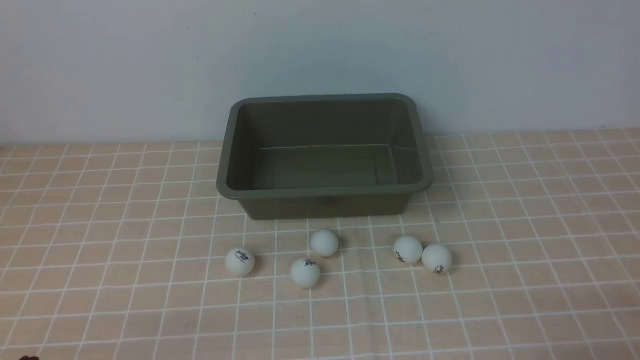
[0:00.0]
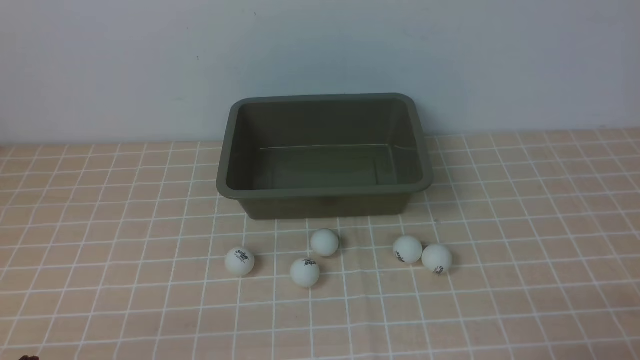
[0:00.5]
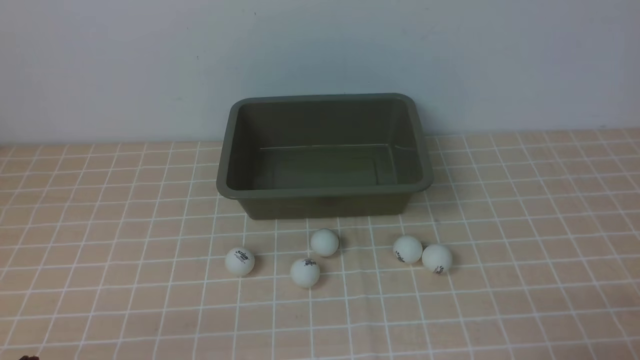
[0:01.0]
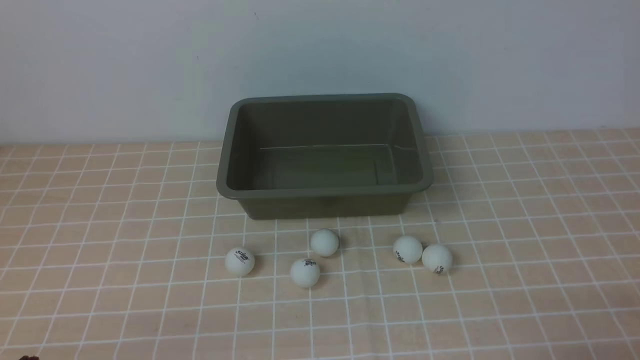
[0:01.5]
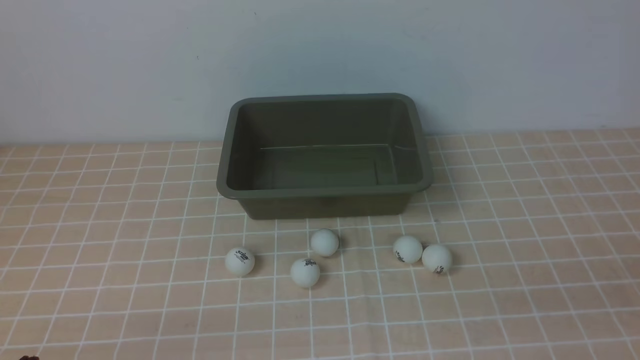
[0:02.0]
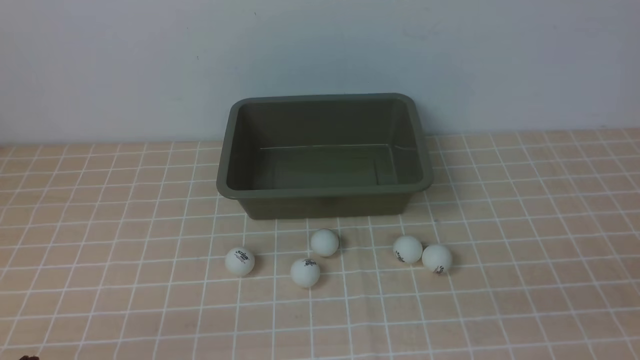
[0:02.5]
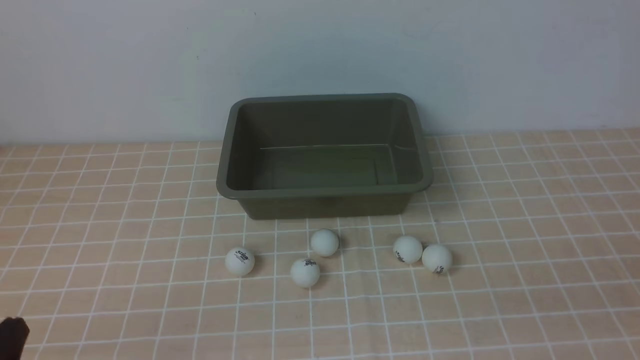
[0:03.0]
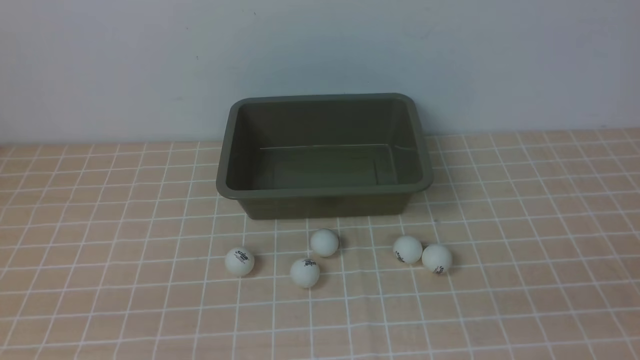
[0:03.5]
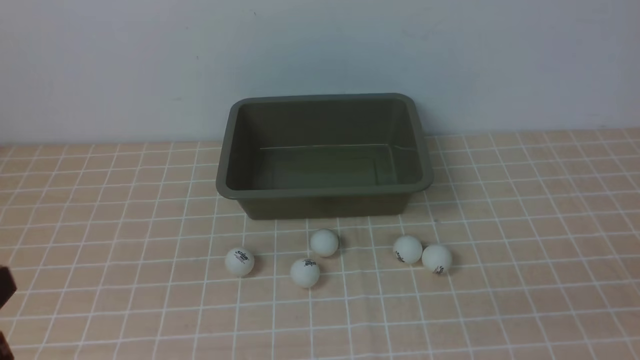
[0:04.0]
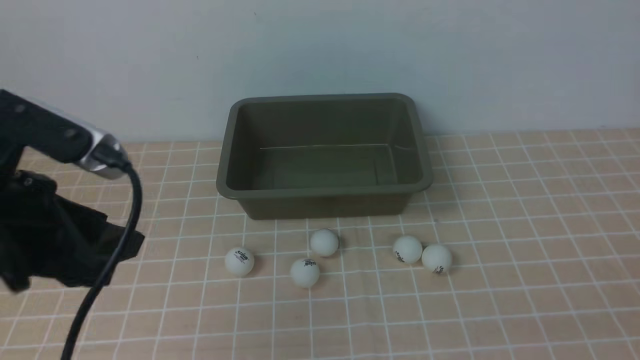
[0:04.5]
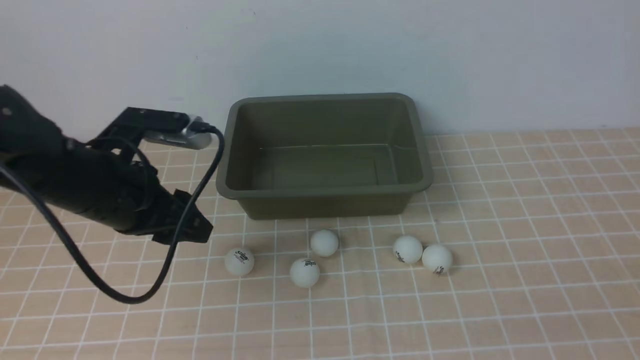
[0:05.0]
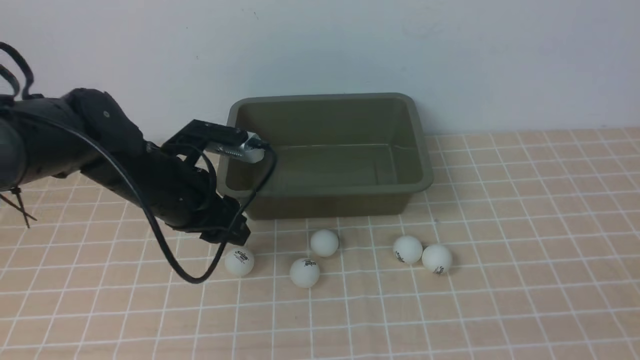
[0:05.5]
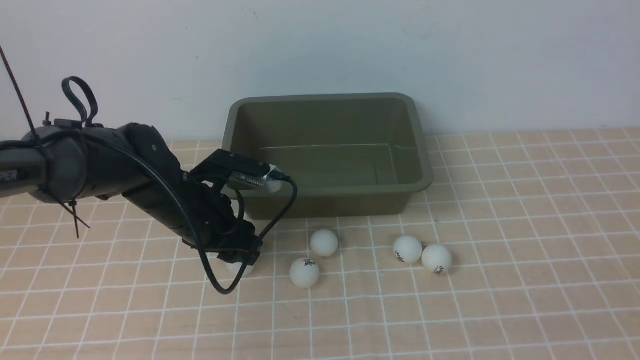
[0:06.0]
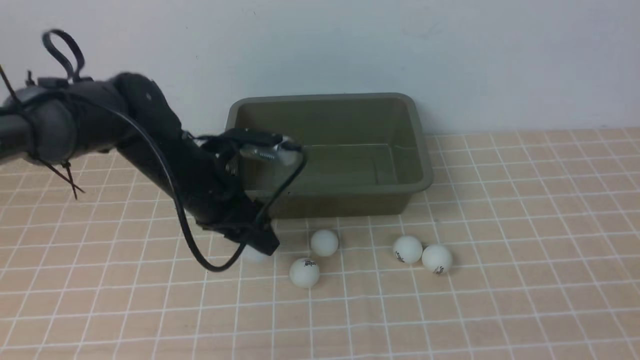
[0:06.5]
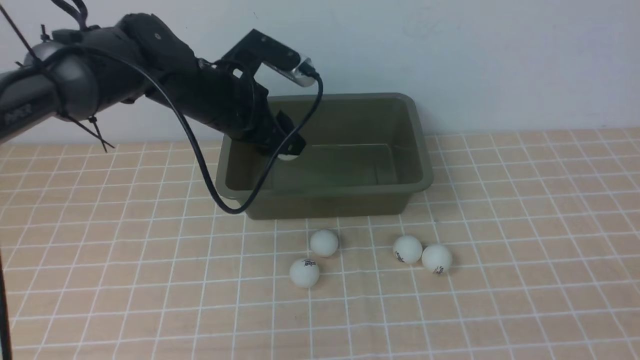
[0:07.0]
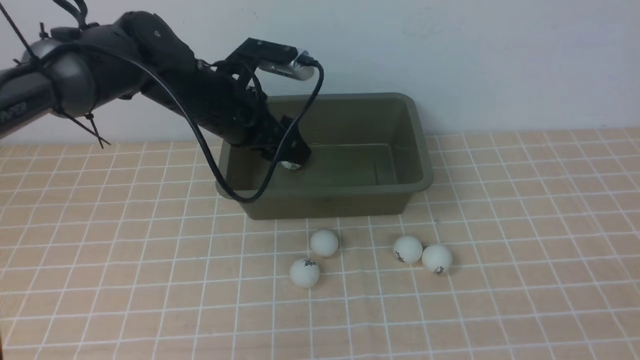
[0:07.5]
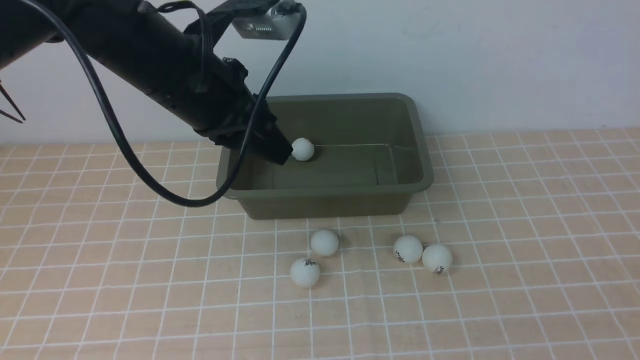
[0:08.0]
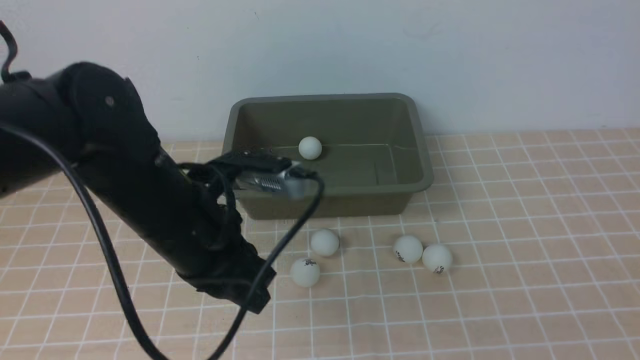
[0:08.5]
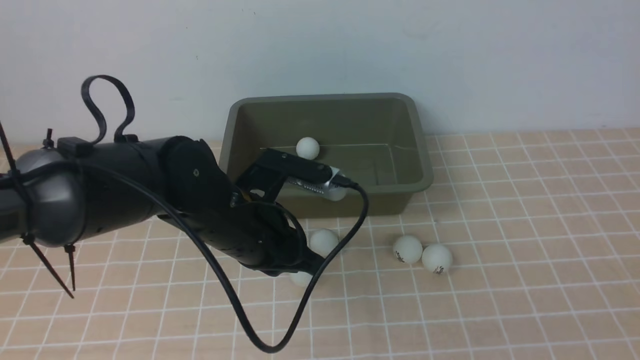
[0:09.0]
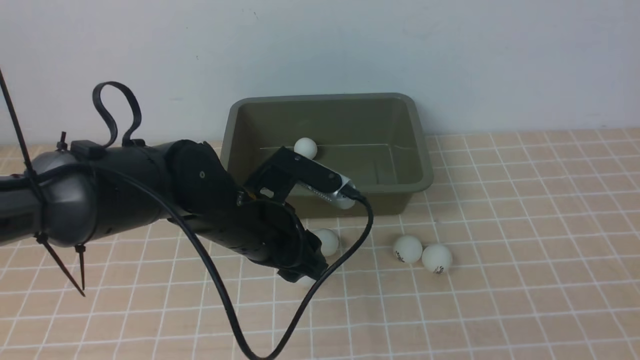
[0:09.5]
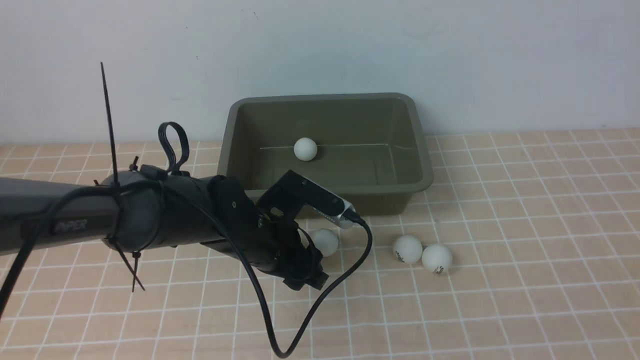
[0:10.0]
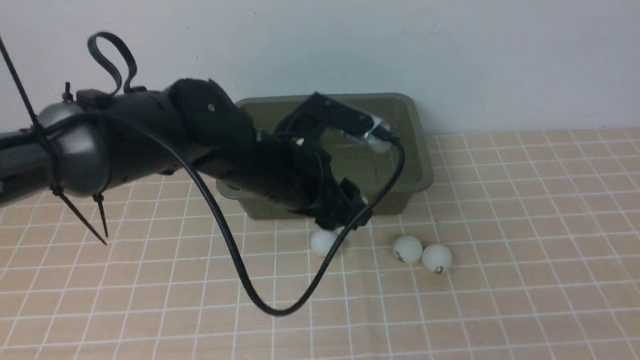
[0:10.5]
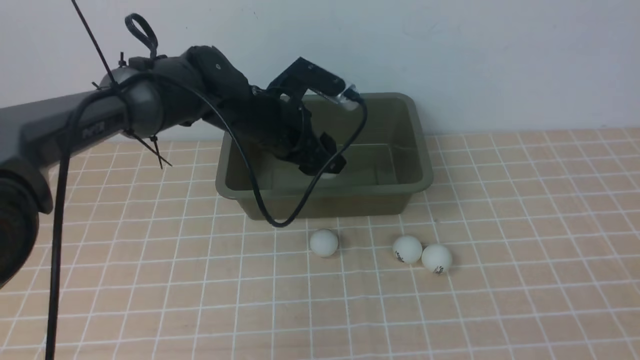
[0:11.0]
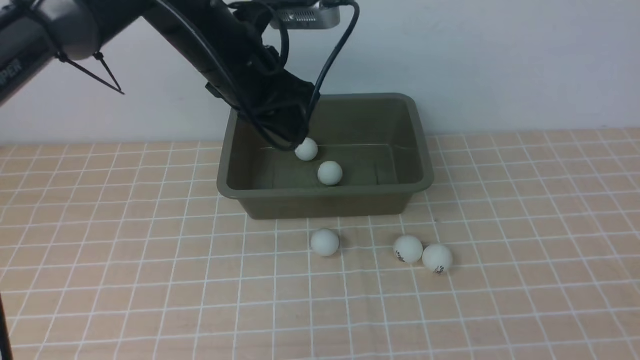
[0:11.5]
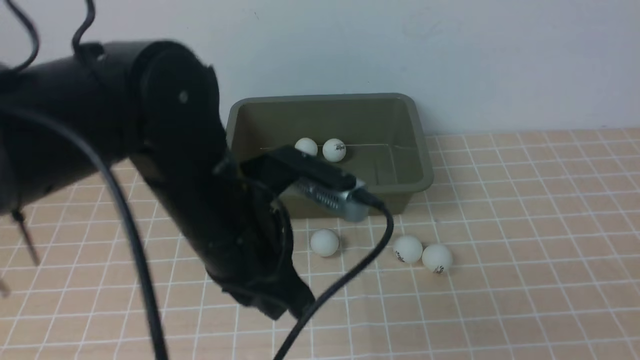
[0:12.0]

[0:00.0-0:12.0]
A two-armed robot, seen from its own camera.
Step, 0:00.0 to 0:06.0: use the left arm to clamp the table tennis ball closest to it.
Step, 0:07.0 to 0:07.5: use the left arm to put the table tennis ball into the box.
Step, 0:08.0 to 0:10.0: use the left arm to clamp the table tennis ball closest to it.
0:04.0 to 0:06.0: The left gripper is displaced forward and downward by about 30 cm, and opens its fingers.
0:06.0 to 0:08.0: The left gripper is displaced upward by about 15 cm, and closes.
0:08.0 to 0:10.0: The left gripper moves downward, about 15 cm, and opens.
0:10.0 to 0:12.0: The left gripper goes about 15 cm upward and backward, and closes.

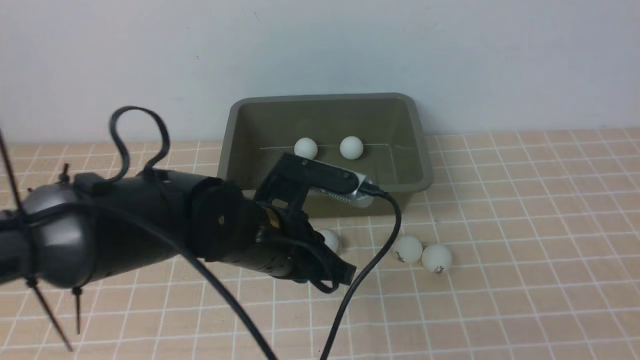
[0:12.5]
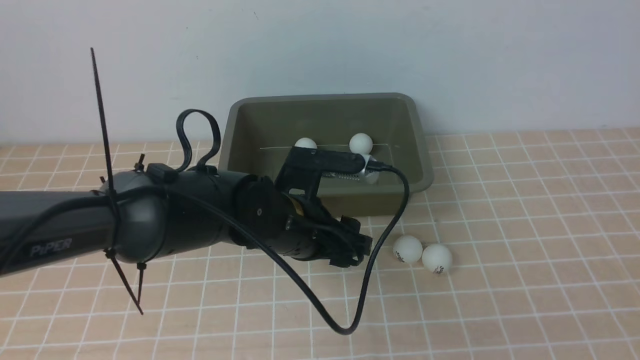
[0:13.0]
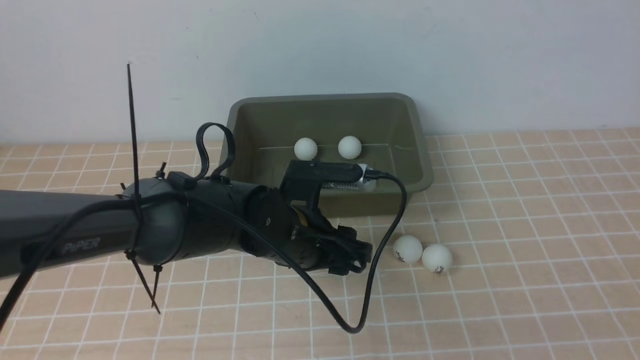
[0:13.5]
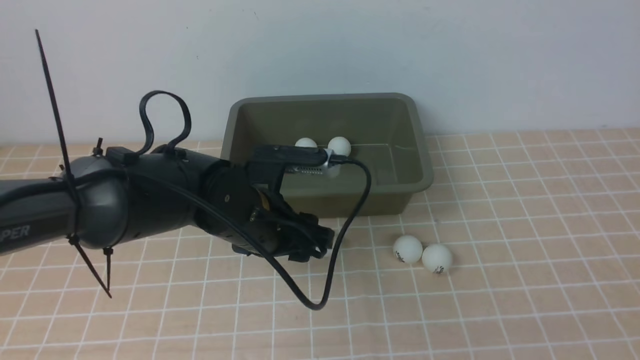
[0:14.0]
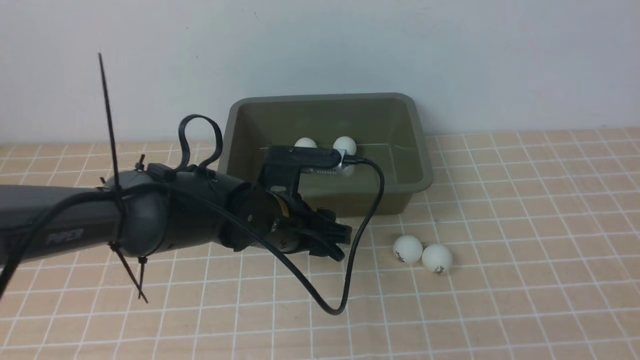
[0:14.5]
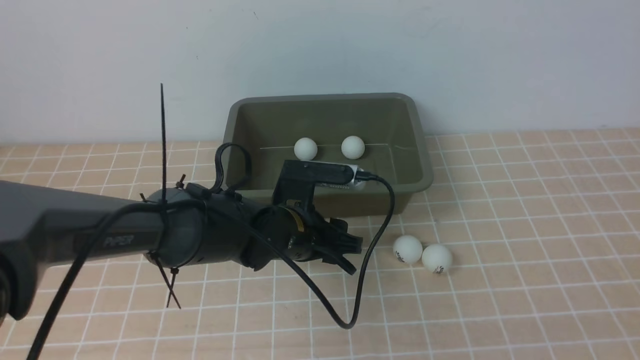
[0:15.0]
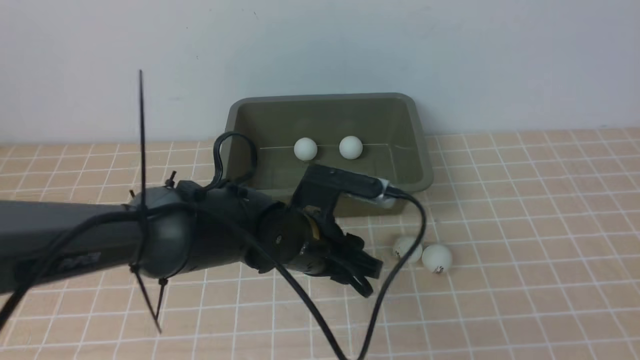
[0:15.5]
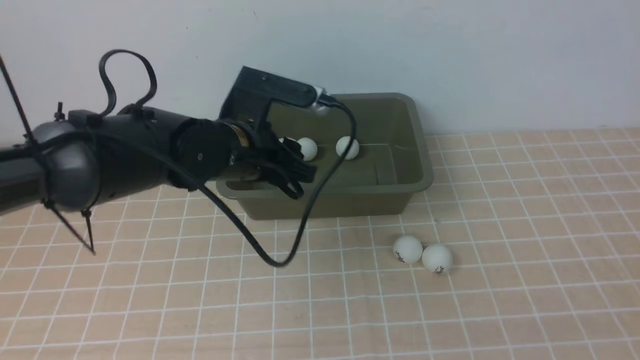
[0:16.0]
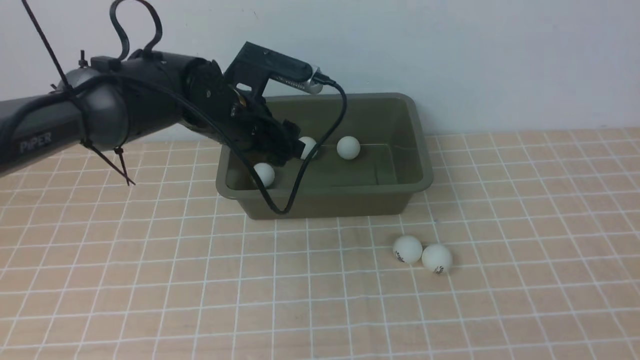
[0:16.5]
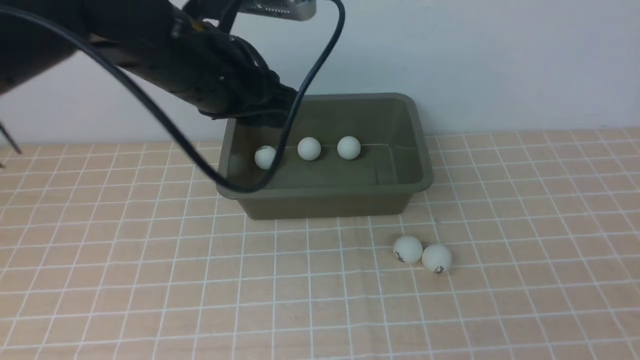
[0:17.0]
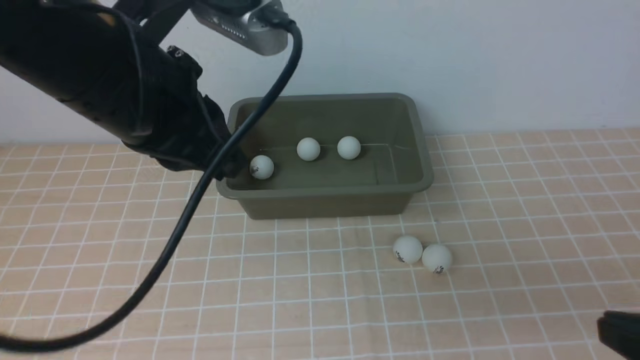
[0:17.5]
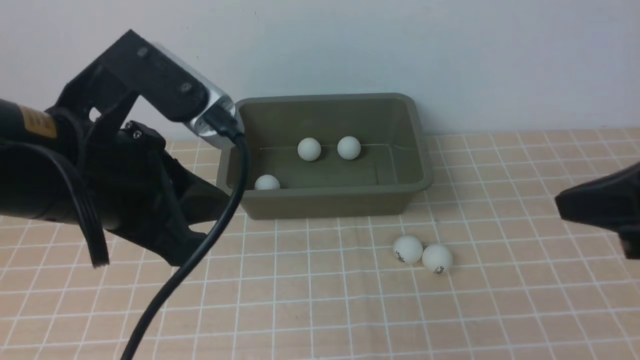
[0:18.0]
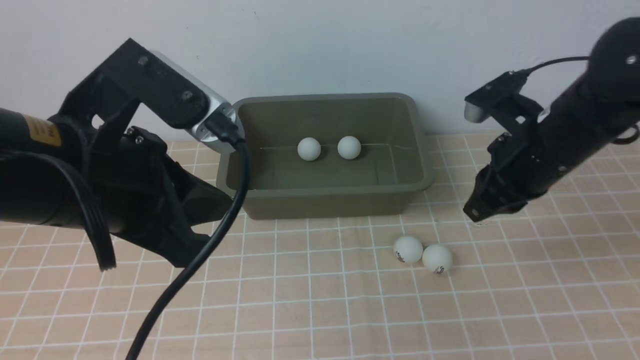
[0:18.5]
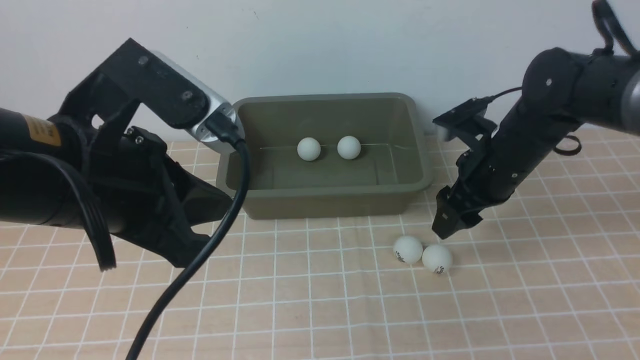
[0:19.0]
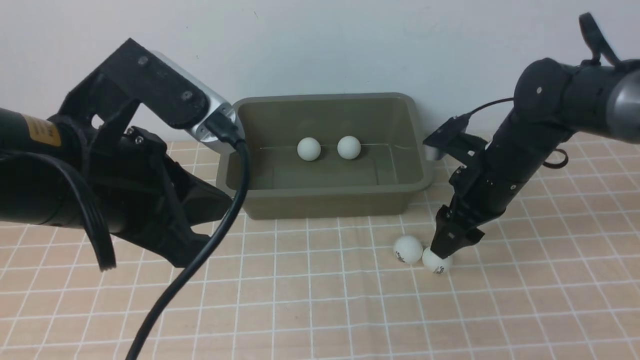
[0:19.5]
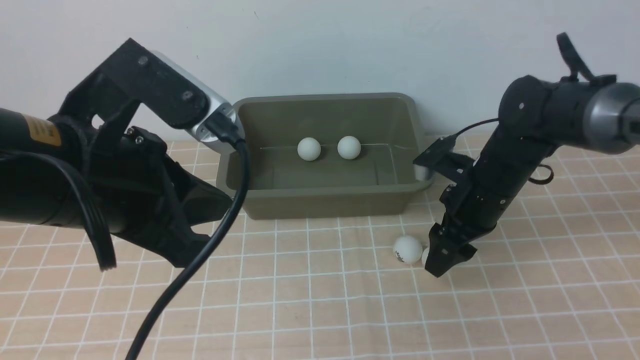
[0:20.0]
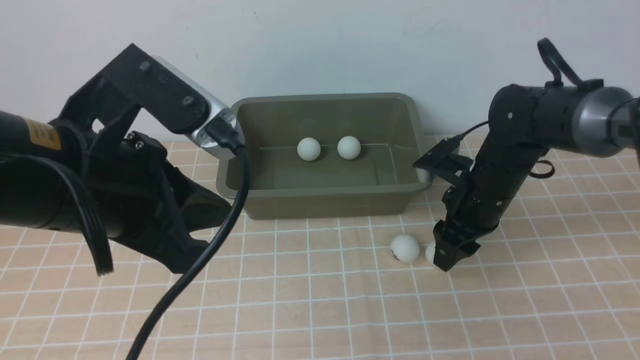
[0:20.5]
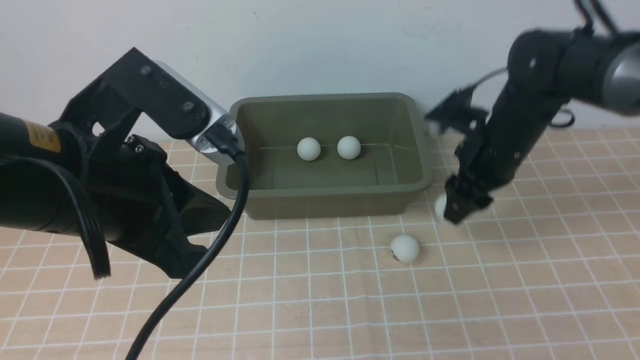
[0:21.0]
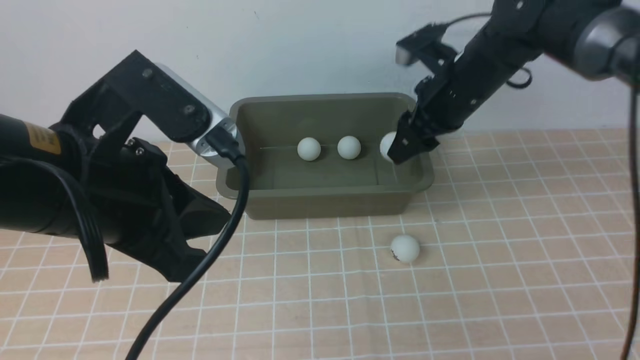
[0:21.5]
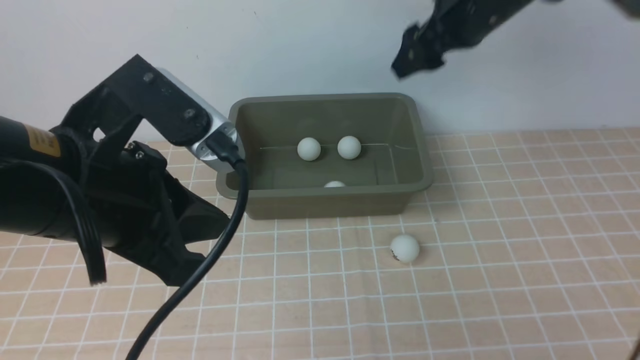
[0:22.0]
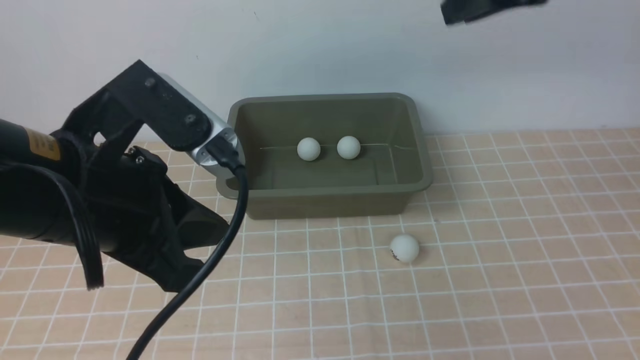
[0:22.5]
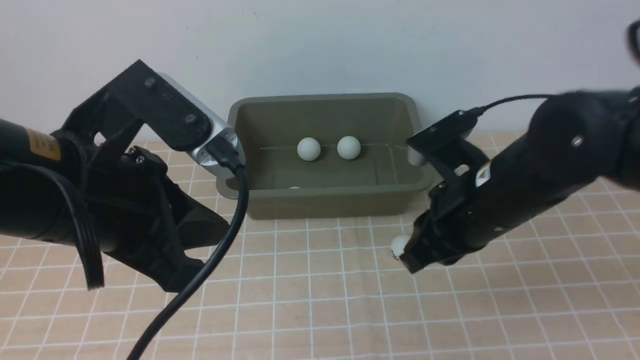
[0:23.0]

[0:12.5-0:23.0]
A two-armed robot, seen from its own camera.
Step, 0:14.0 to 0:20.5: use the right arm to clamp the table tennis ball closest to it.
Step, 0:21.0 to 0:21.5: use the right arm to put the table tennis ball into the box.
0:12.5 to 0:14.5: The left gripper heads forward, covering about 5 cm, and opens up.
0:14.5 to 0:16.5: The left gripper moves forward, upward and to the left, some 10 cm.
0:16.5 to 0:19.0: The left gripper is displaced backward and upward by about 25 cm, and closes up. Meanwhile the right gripper moves forward, some 35 cm, and opens up.
0:19.0 to 0:21.0: There are only small adjustments of the grippers.
0:21.0 to 0:23.0: The right gripper heads backward, covering approximately 10 cm, travels upward and back again, roughly 20 cm each way, and closes.
